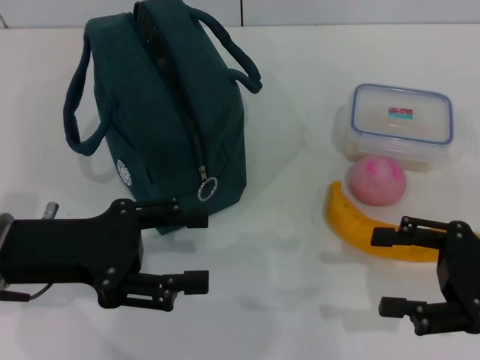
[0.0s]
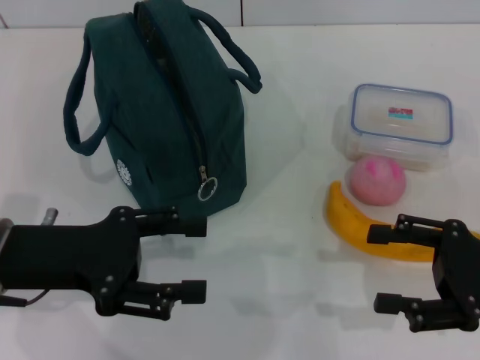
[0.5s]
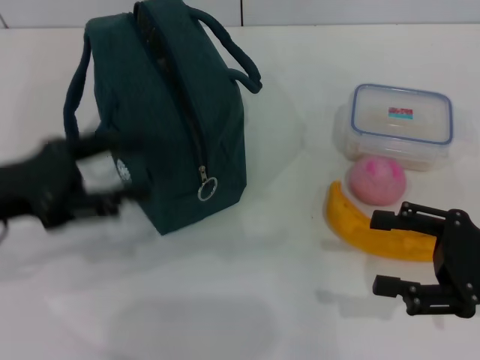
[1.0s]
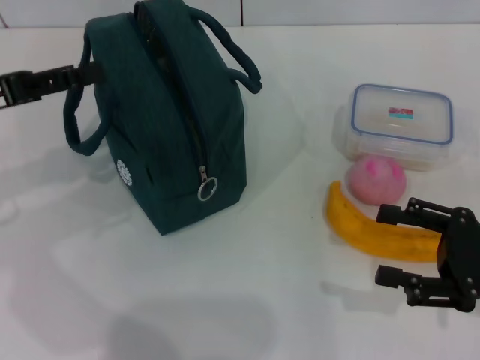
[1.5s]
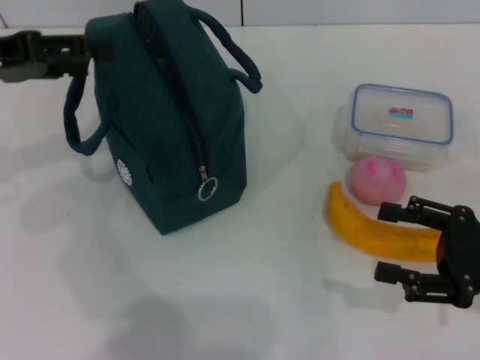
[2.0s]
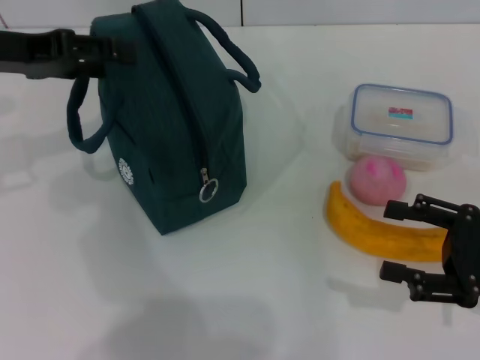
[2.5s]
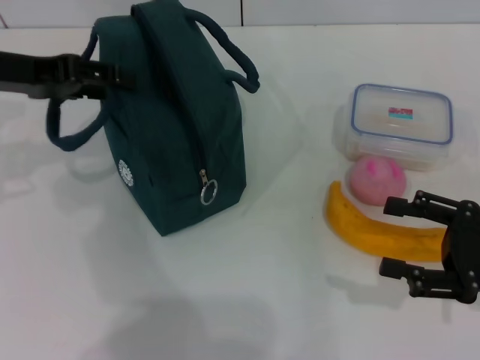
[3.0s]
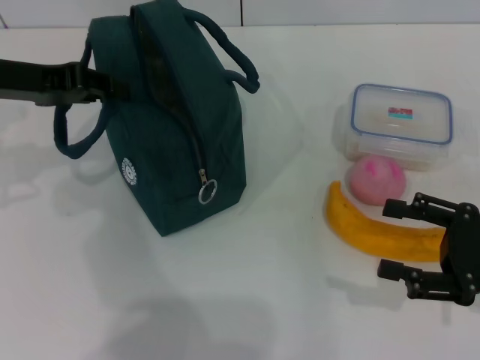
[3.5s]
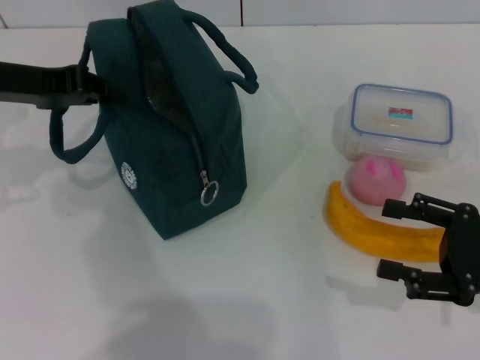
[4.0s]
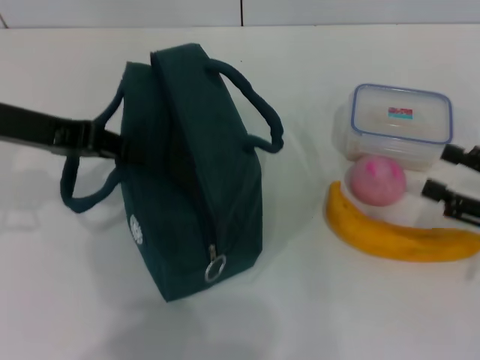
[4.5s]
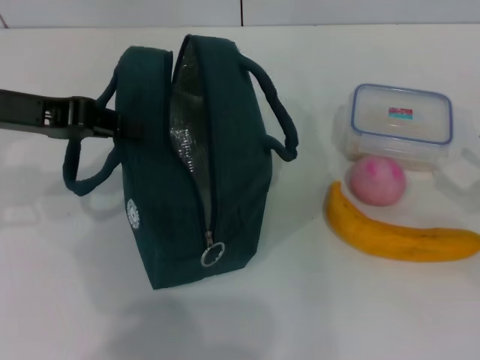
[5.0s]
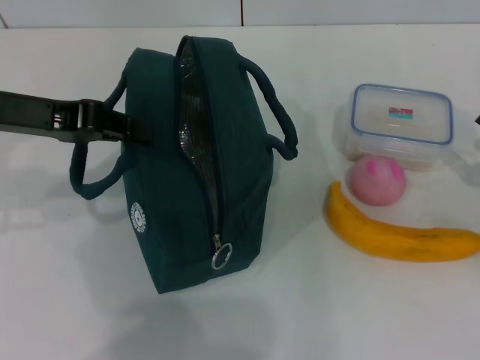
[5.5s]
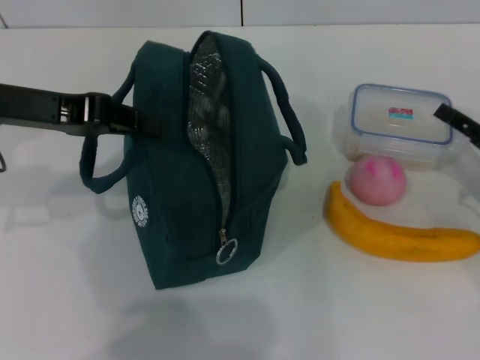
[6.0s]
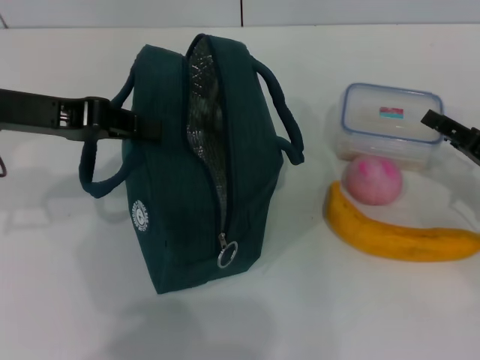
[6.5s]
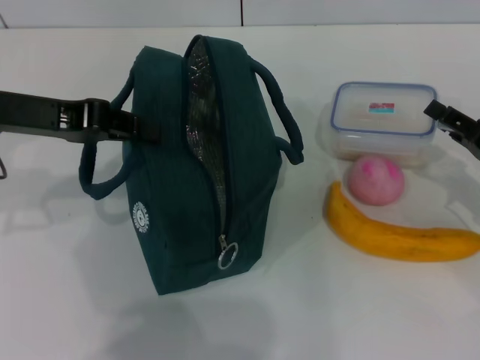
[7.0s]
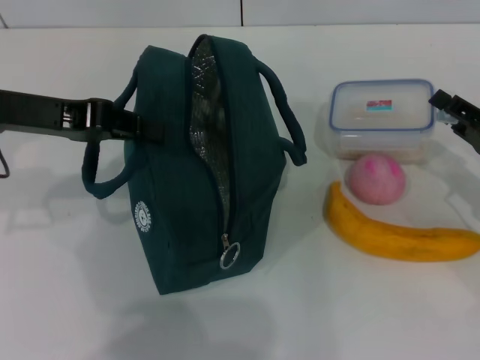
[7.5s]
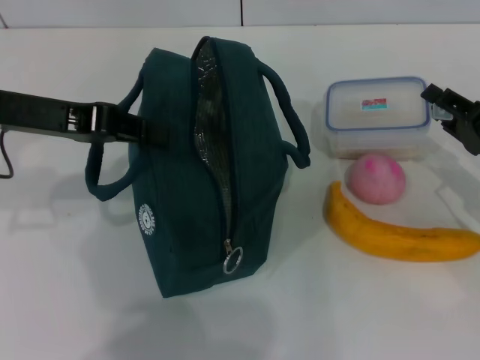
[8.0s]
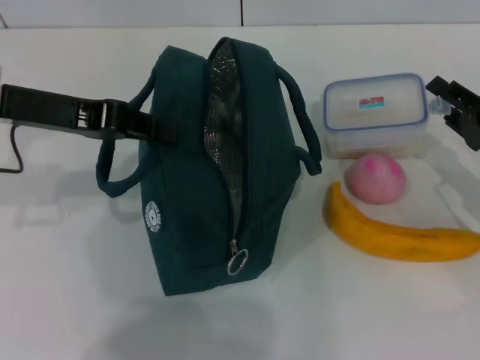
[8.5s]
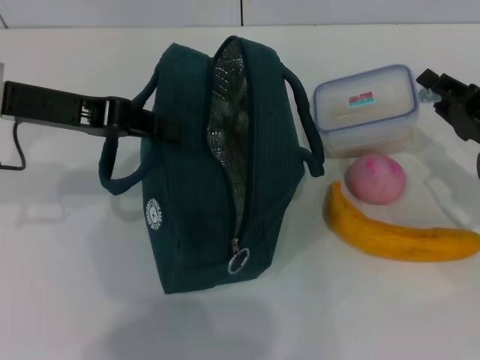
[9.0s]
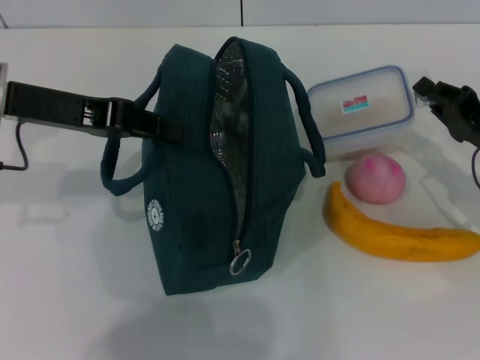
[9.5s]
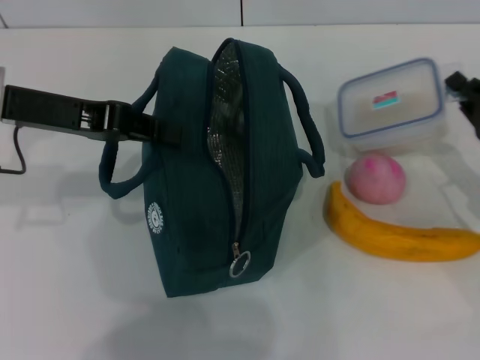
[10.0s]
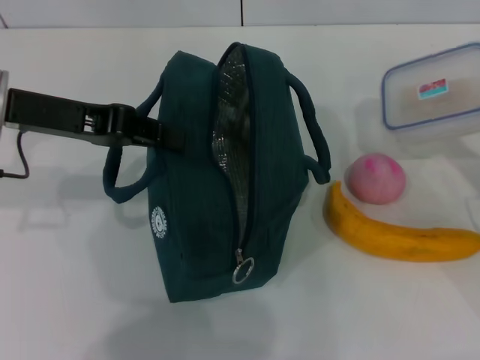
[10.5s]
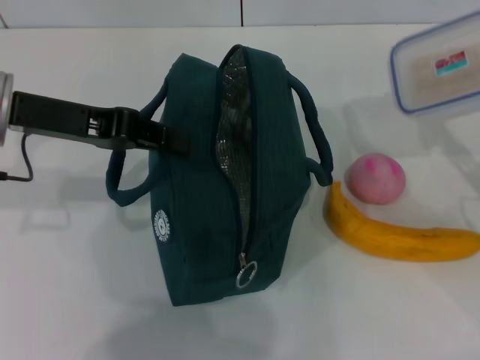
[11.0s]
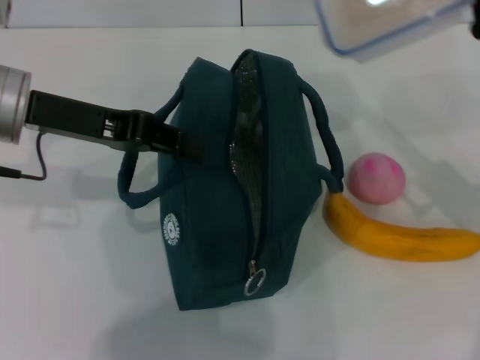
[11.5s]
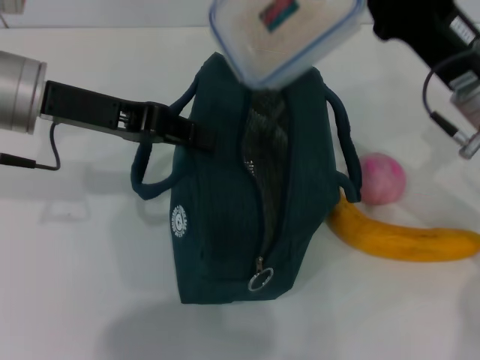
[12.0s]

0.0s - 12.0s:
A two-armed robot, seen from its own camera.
Step, 0.0s - 3.0s: Hold the lunch bag with your left hand.
Step, 3.5s - 7.0s: Pick up the lunch box with your right hand.
0.0s - 2.0s: The left gripper travels upward, forward and to the left by some 15 cm.
2.0s - 4.0s: The left gripper closes its fingers.
4.0s - 6.0s: The right gripper travels forward by about 10 cm.
6.0s - 8.0s: The right gripper closes its fingers.
8.0s - 10.0s: The right gripper closes its fingers.
10.0s - 12.0s: The right gripper goes roughly 15 cm to the left and upward.

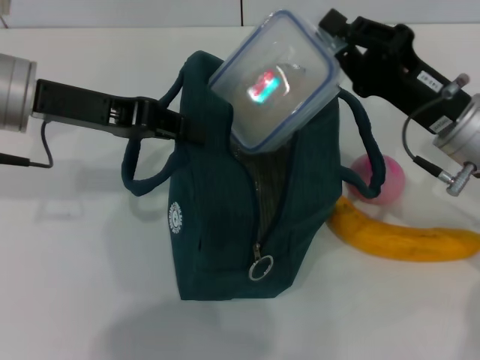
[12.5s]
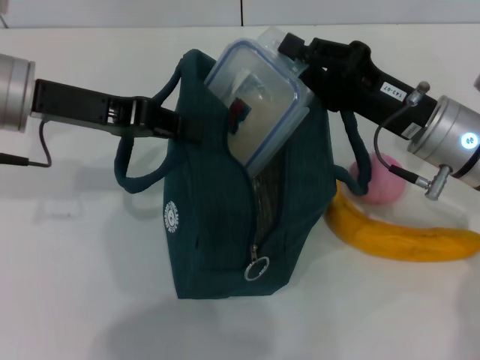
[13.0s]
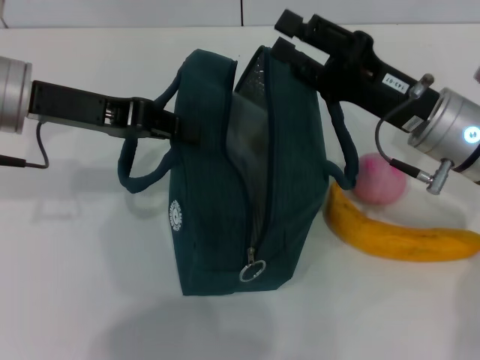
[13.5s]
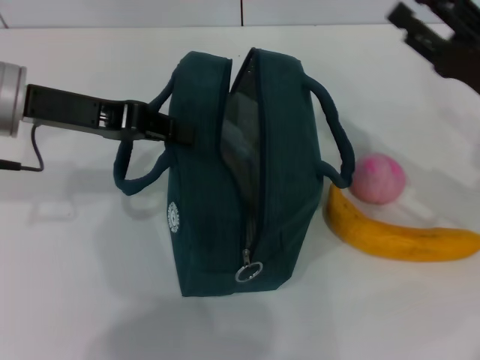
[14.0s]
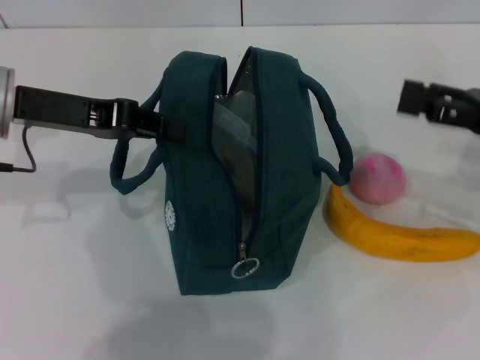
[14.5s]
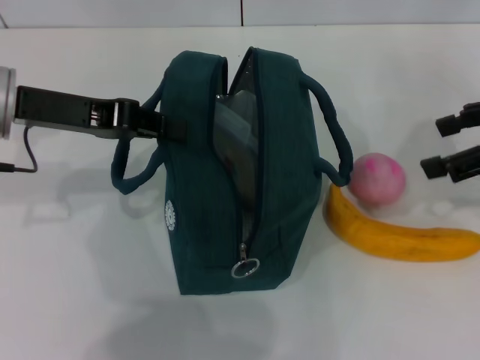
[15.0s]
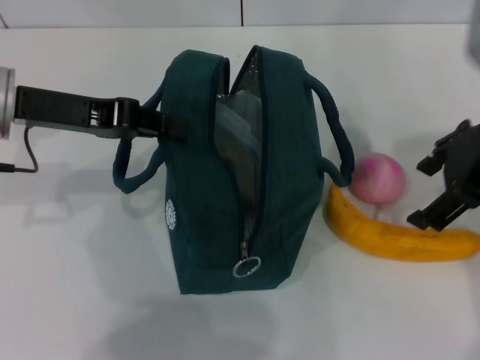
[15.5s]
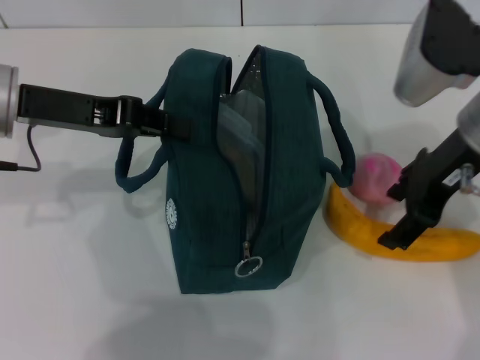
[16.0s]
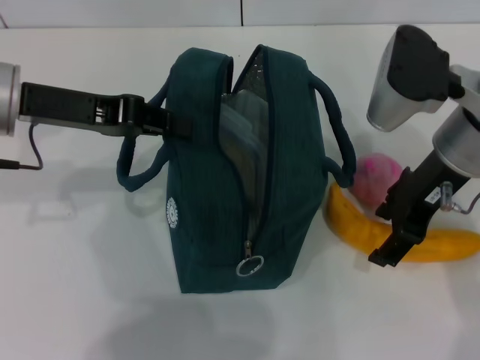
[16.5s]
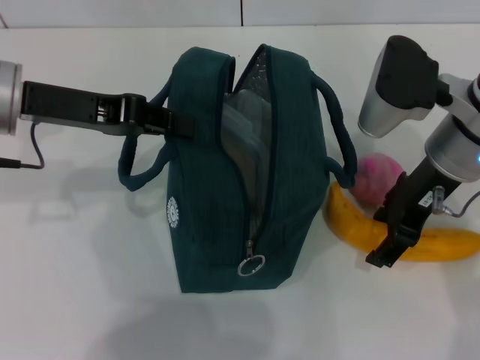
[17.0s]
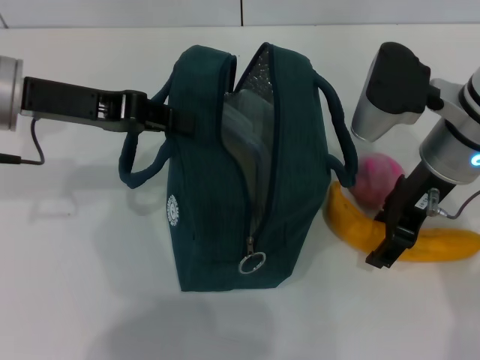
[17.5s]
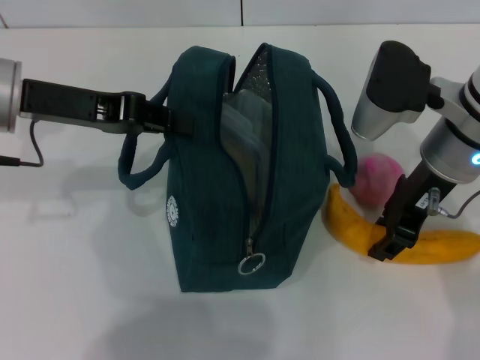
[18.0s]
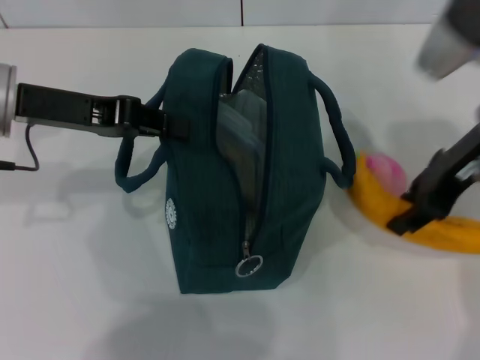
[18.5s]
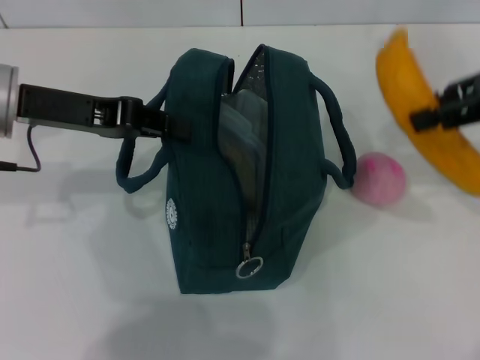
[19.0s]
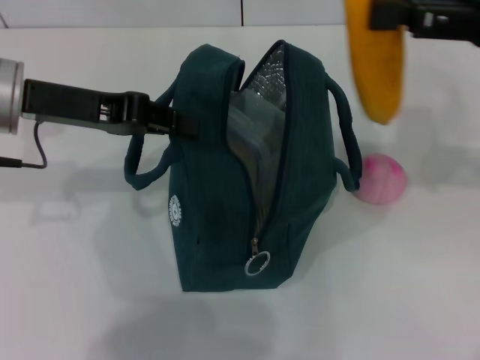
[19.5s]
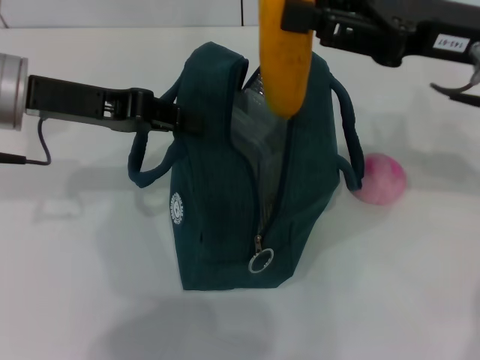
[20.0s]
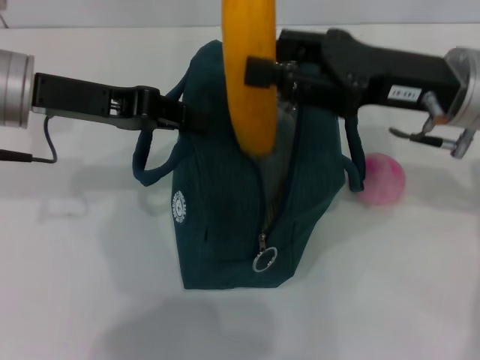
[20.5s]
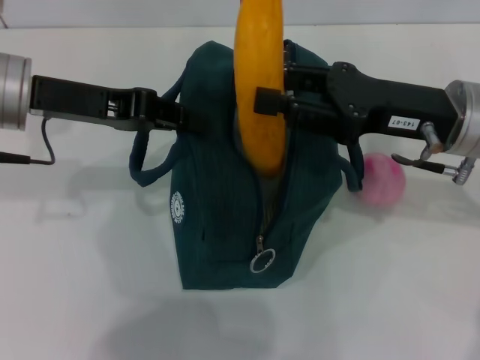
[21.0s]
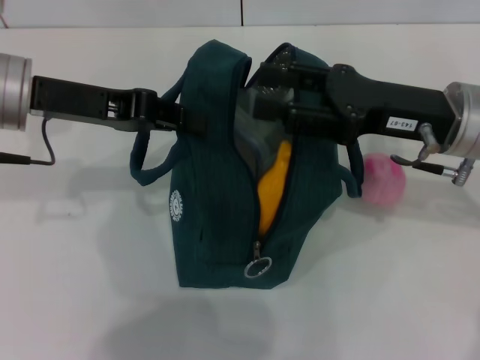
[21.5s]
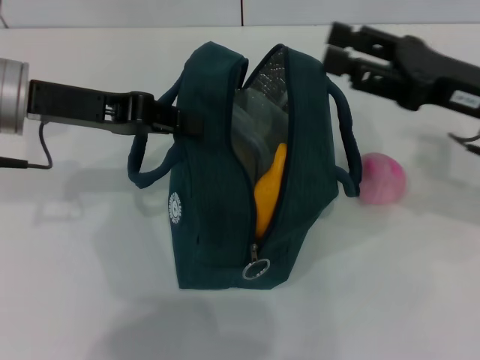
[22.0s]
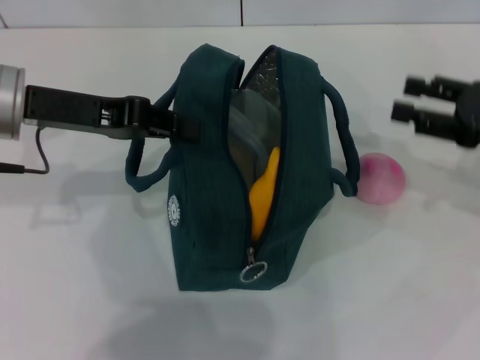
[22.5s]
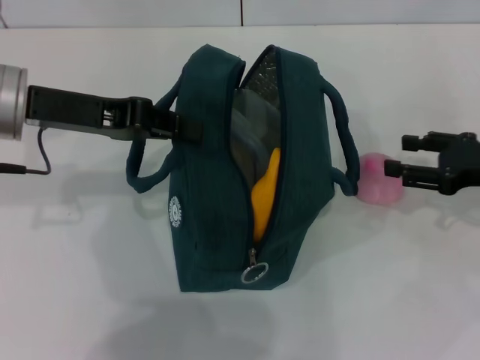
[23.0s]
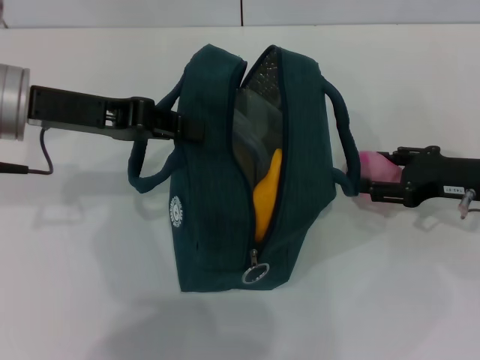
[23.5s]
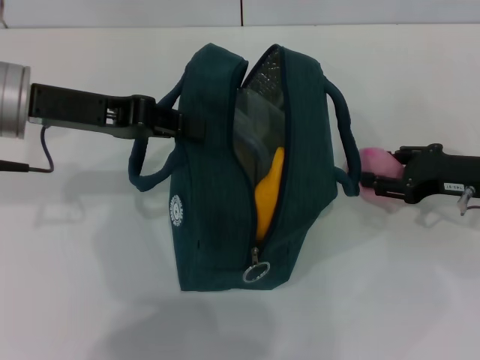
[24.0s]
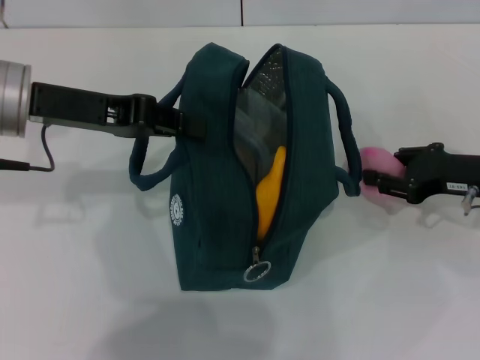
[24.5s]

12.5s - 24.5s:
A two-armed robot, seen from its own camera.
Step, 13.5s - 18.0s: Take the banana with your right hand.
Step, 18.5s - 21.0s: Put the banana into the lunch bag with your right hand.
Step, 21.5s - 23.5s: Grab the peach with your right hand.
12.5s - 14.5s: The right gripper shifts roughly 10 cm to the right, and opens up.
14.5s - 16.5s: The right gripper goes some 15 cm to the left.
16.5s - 18.5s: The right gripper closes.
18.5s - 20.5s: The right gripper reaches approximately 10 cm to the right, then returns.
20.5s - 22.5s: The right gripper shifts about 15 cm to the right.
22.5s - 24.5s: The right gripper shifts some 5 cm downward.

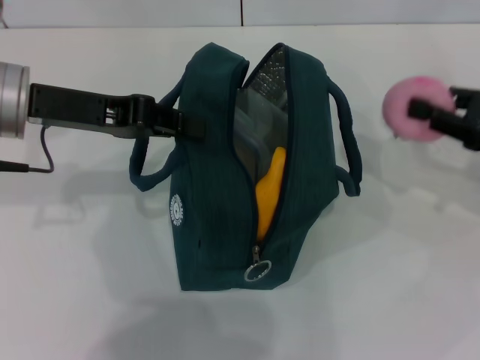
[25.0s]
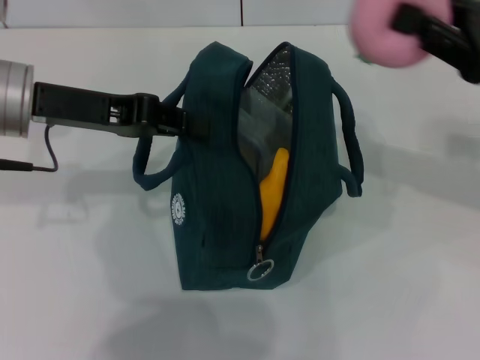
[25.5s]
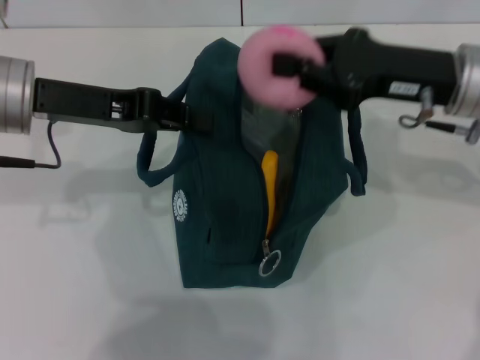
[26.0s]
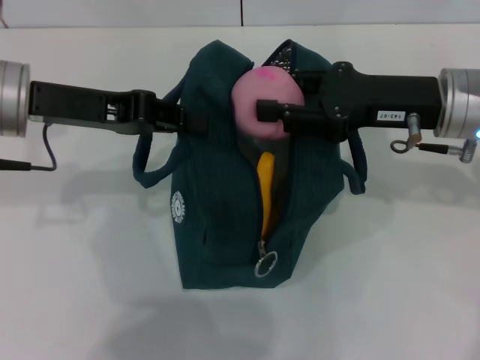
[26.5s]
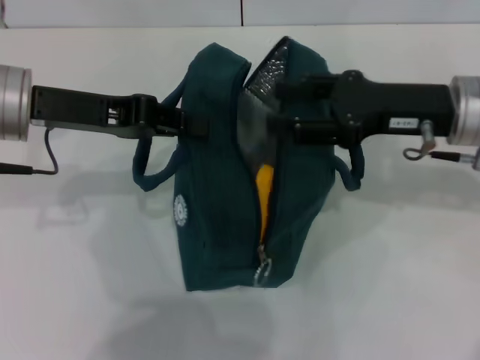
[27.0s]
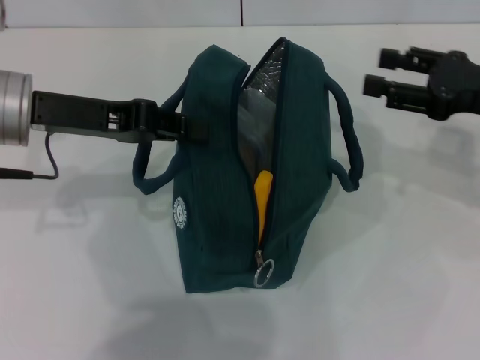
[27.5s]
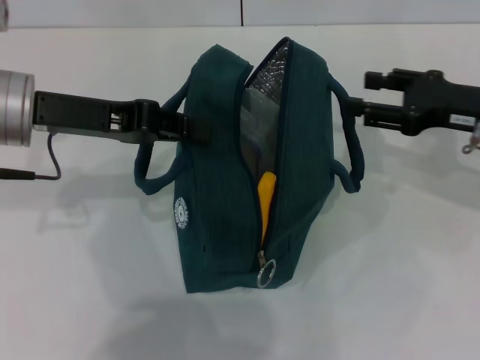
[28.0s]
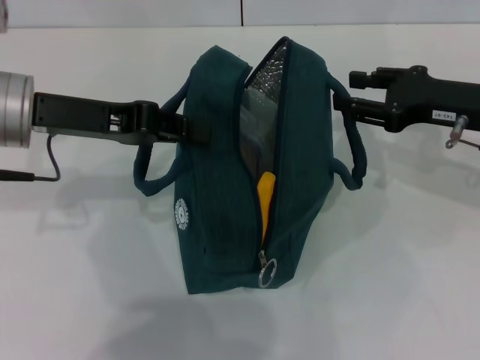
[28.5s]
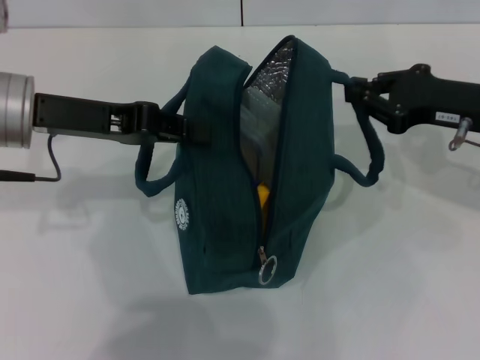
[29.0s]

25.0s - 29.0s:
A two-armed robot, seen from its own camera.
25.0s - 27.0s: The right gripper moves to the left, roughly 10 cm.
27.0s - 29.0s: The right gripper goes approximately 5 cm to the right, and closes its fingers.
